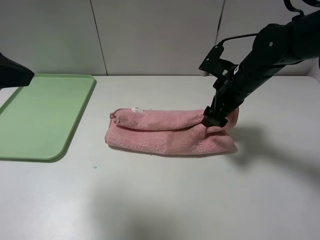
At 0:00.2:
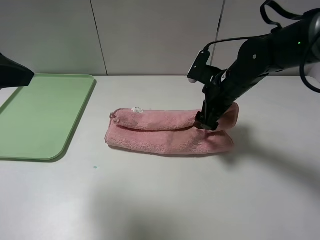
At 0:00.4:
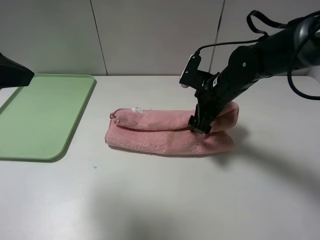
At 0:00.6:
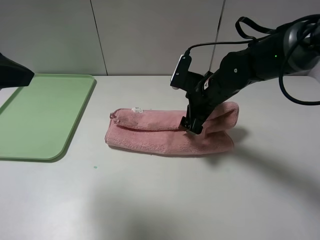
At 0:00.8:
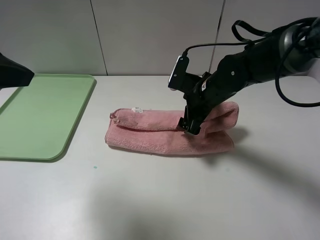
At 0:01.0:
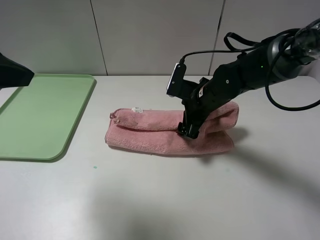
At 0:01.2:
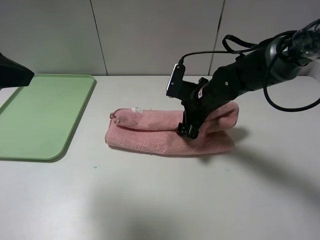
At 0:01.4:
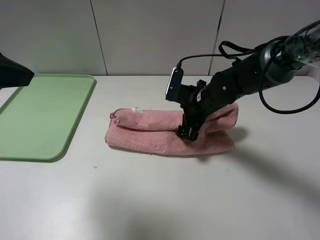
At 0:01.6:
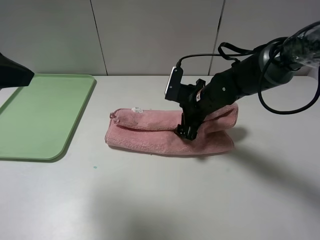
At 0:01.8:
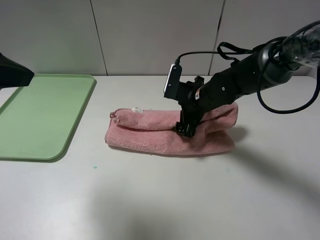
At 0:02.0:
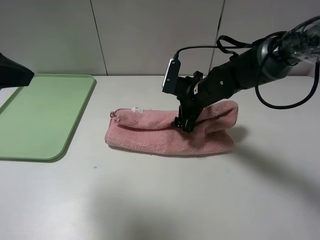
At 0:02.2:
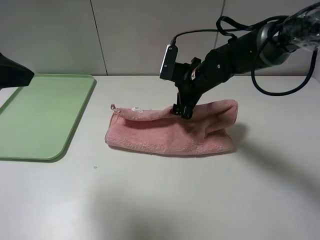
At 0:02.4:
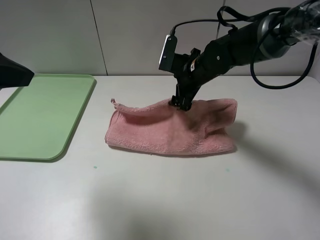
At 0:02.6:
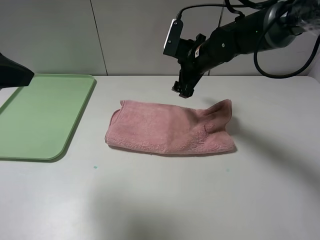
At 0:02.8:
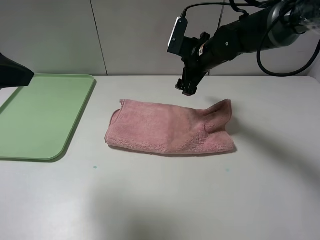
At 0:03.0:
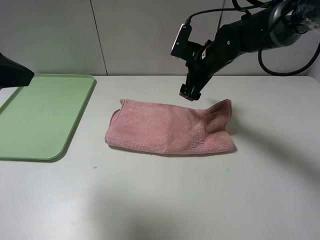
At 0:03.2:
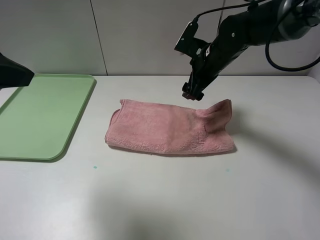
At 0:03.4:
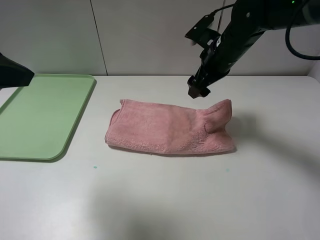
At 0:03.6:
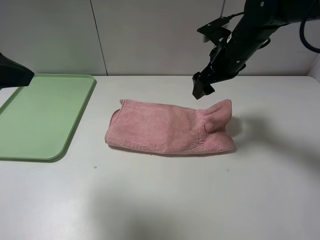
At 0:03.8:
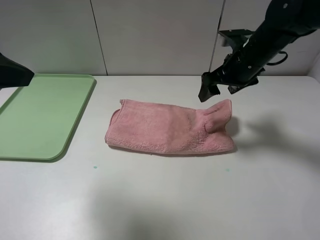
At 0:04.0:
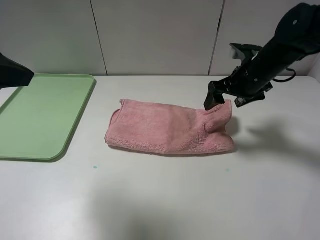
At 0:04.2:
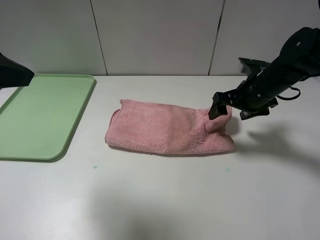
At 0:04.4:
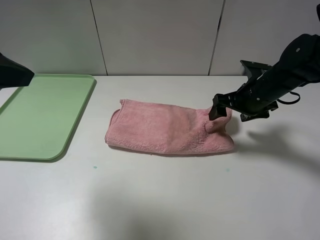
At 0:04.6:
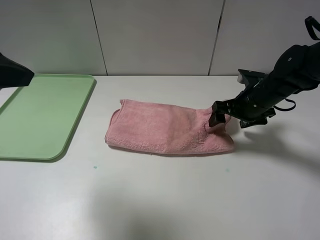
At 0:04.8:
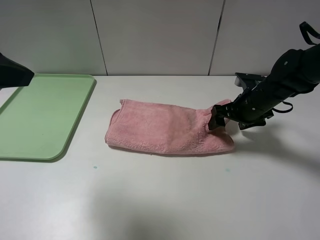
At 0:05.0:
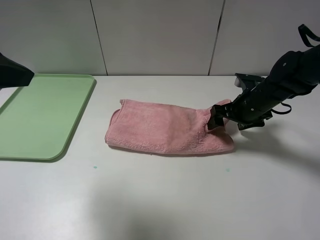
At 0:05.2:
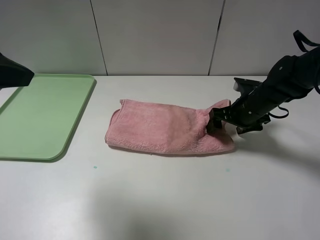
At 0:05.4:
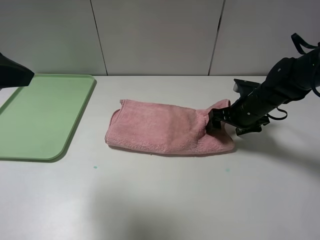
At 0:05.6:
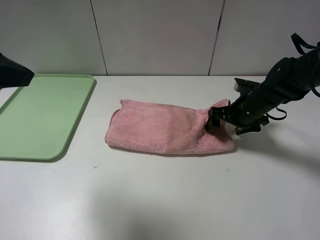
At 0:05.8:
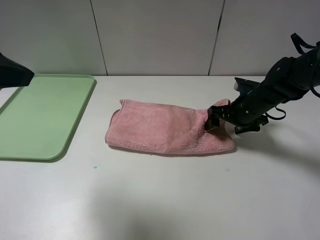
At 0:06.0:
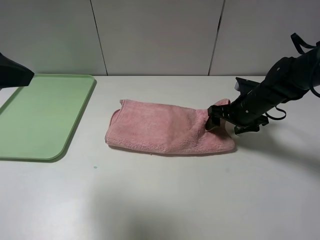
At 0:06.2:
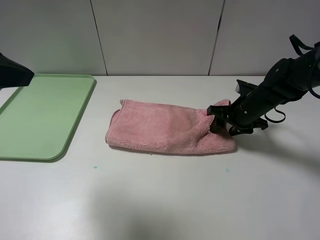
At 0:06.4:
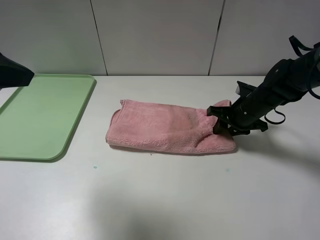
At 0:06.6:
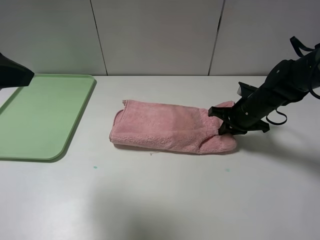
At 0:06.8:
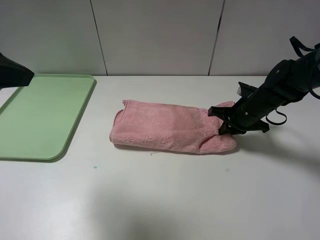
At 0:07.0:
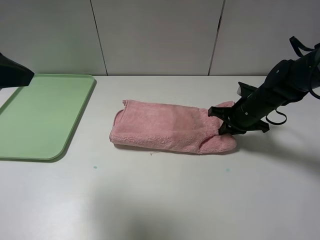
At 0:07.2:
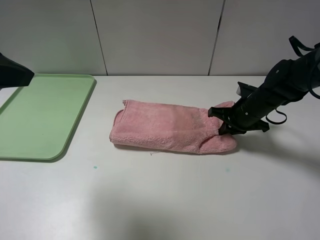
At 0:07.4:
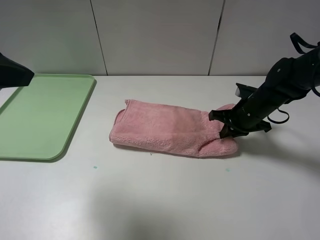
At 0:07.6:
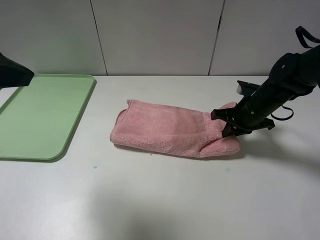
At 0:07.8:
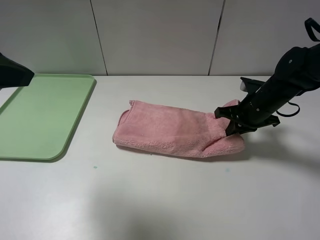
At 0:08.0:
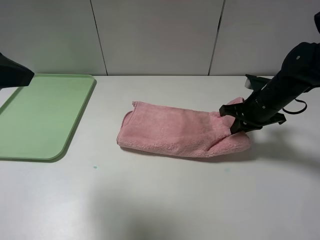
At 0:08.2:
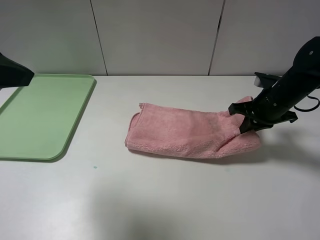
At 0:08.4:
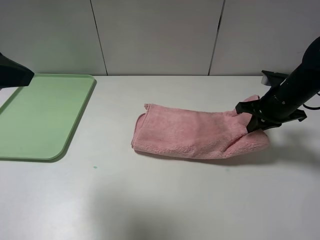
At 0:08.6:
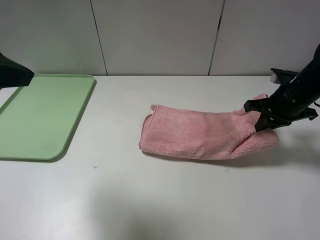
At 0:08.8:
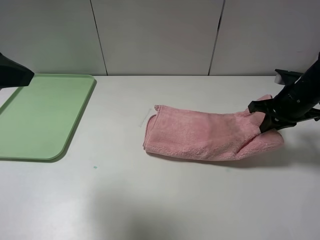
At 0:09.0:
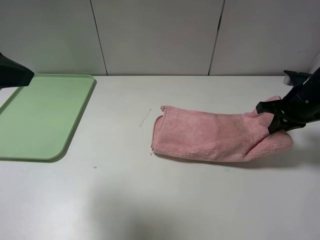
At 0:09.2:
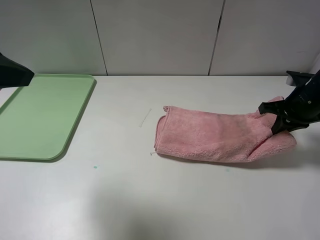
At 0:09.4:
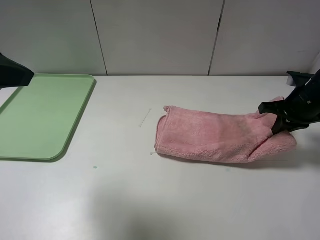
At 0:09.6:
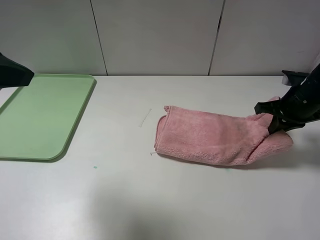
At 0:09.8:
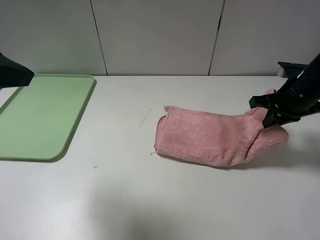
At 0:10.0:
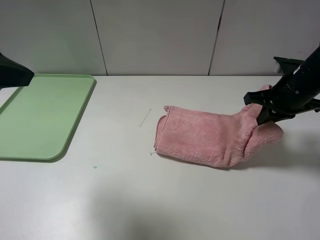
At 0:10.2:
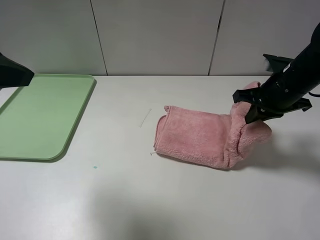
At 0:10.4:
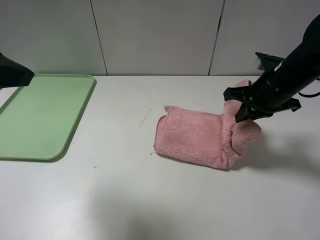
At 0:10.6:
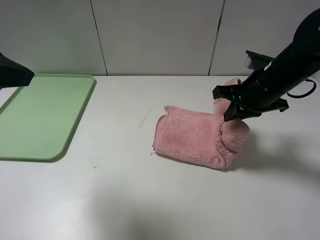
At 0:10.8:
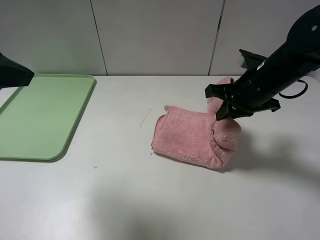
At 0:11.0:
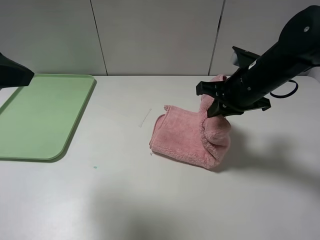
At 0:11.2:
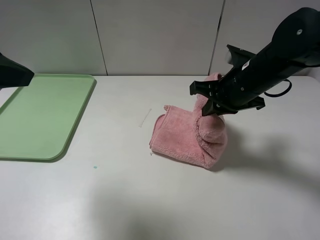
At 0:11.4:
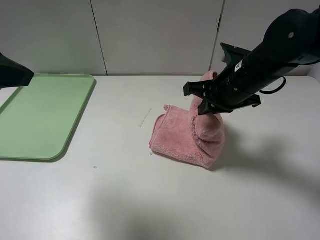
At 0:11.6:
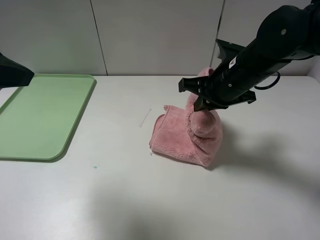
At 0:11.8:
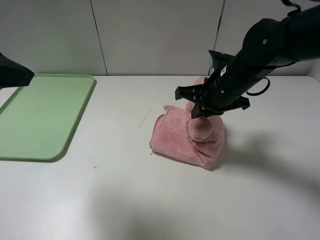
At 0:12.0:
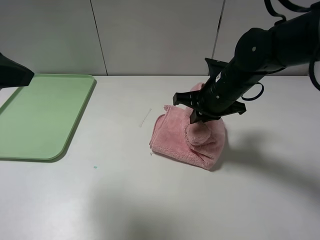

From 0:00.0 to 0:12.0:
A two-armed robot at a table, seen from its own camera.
Step, from 0:00.0 to 0:03.0: Fold the pink towel upwards.
From 0:00.0 to 0:01.6: The right gripper is displaced downward and to the left by about 10 cm.
From 0:01.6 to 0:03.0: The right gripper goes some 10 cm upward and forward.
From 0:03.0 to 0:04.4: The right gripper goes roughly 10 cm to the right and backward.
From 0:04.4 to 0:06.0: The right gripper moves downward, roughly 5 cm.
From 0:06.0 to 0:07.6: The right gripper closes up.
From 0:07.6 to 0:09.0: The right gripper shifts roughly 10 cm to the right.
From 0:09.0 to 0:10.4: The right gripper heads to the left, covering about 10 cm.
From 0:10.4 to 0:12.0: The right gripper goes approximately 10 cm to the left.

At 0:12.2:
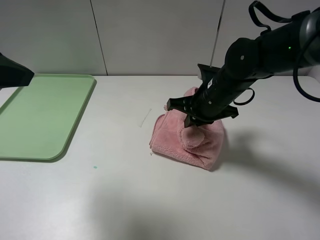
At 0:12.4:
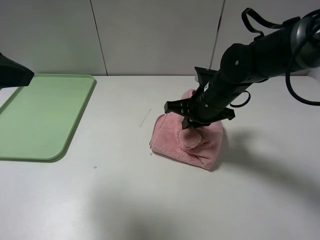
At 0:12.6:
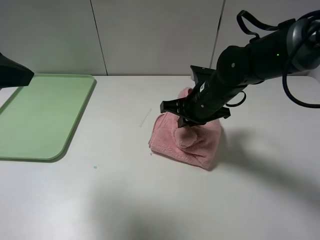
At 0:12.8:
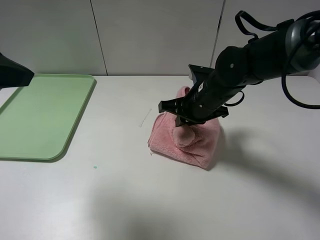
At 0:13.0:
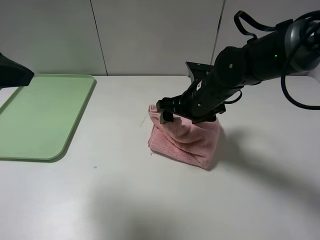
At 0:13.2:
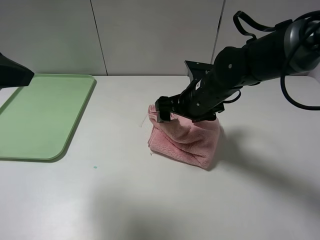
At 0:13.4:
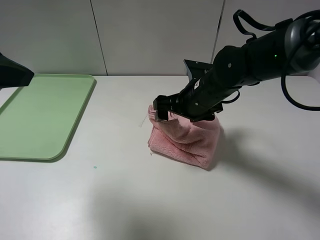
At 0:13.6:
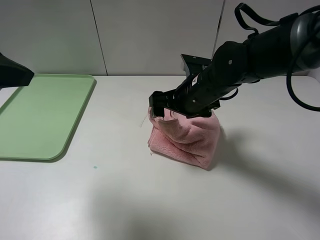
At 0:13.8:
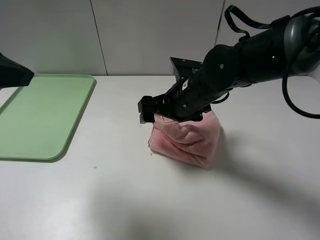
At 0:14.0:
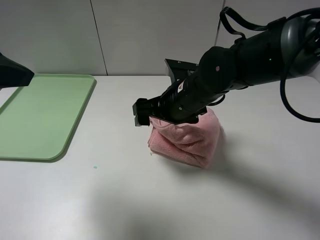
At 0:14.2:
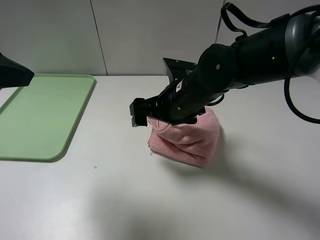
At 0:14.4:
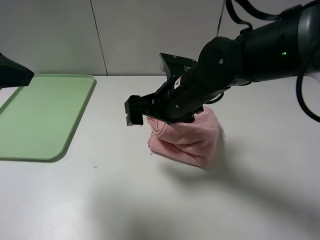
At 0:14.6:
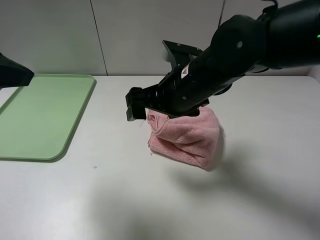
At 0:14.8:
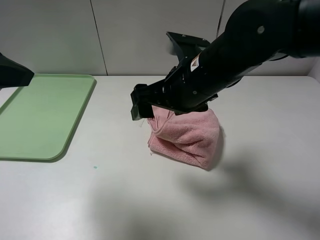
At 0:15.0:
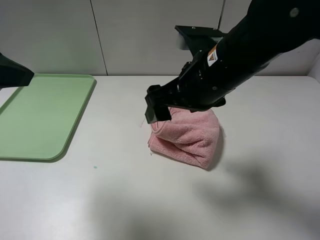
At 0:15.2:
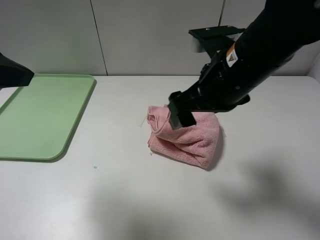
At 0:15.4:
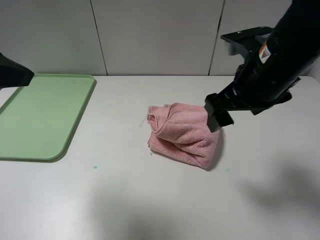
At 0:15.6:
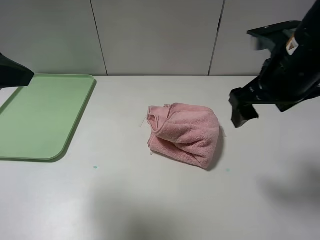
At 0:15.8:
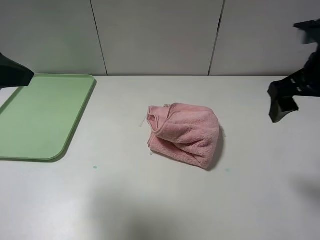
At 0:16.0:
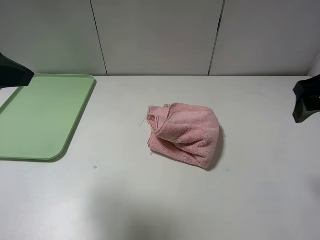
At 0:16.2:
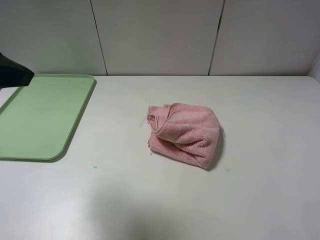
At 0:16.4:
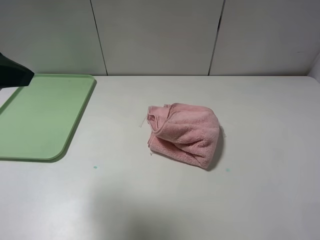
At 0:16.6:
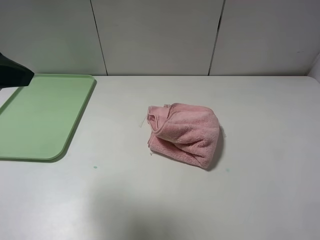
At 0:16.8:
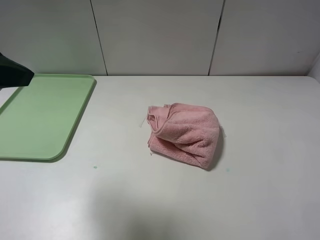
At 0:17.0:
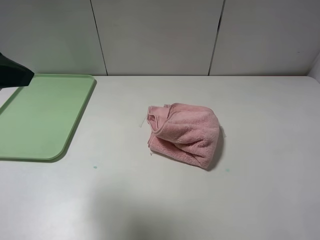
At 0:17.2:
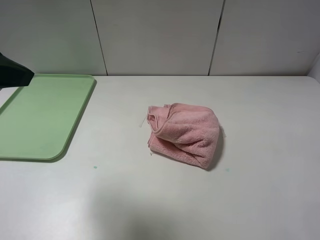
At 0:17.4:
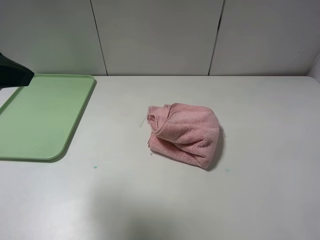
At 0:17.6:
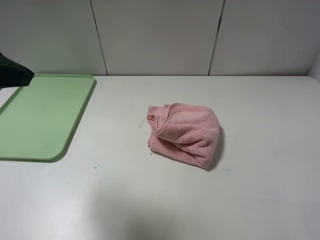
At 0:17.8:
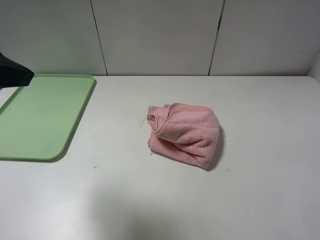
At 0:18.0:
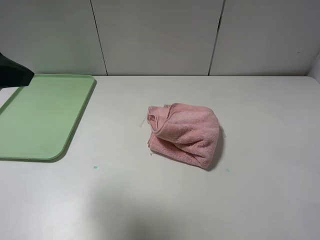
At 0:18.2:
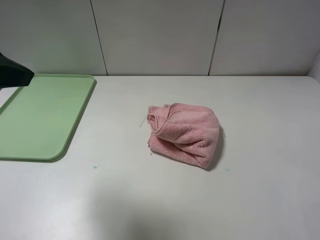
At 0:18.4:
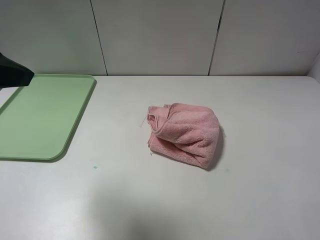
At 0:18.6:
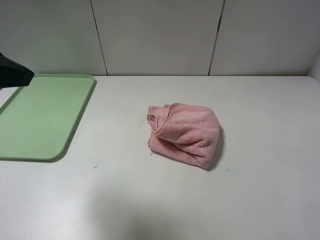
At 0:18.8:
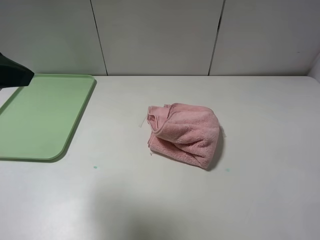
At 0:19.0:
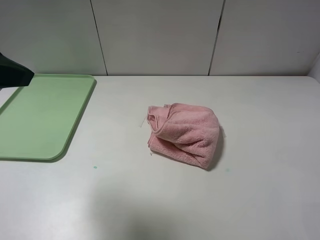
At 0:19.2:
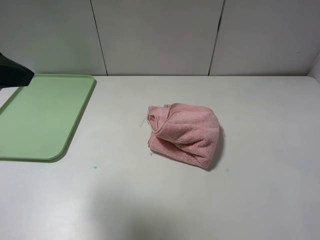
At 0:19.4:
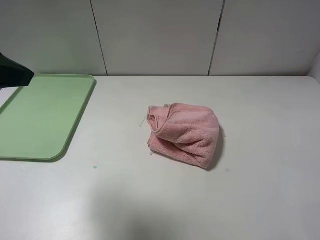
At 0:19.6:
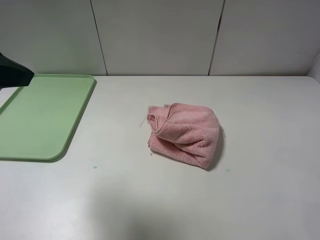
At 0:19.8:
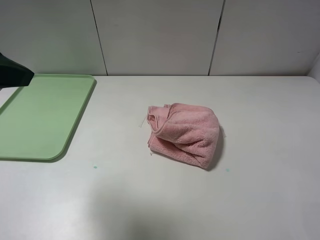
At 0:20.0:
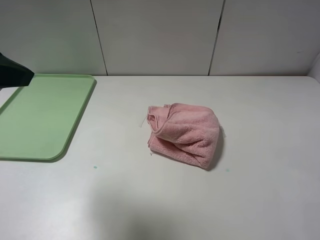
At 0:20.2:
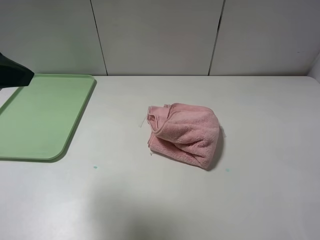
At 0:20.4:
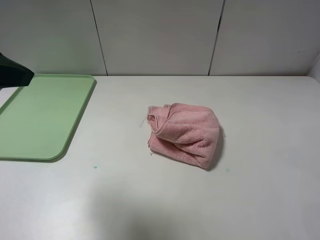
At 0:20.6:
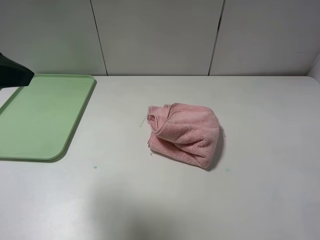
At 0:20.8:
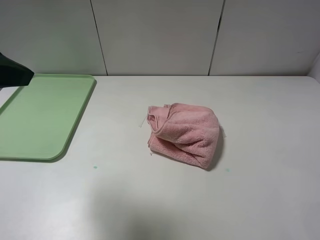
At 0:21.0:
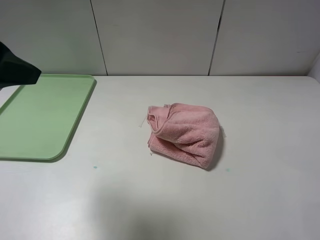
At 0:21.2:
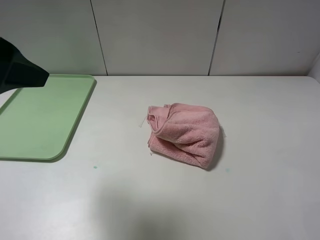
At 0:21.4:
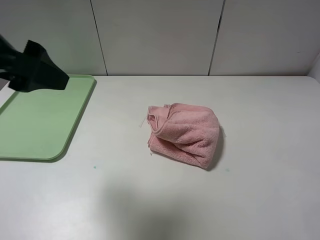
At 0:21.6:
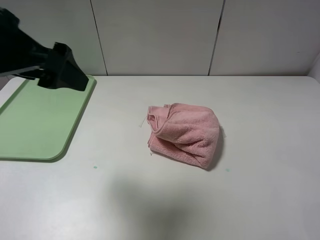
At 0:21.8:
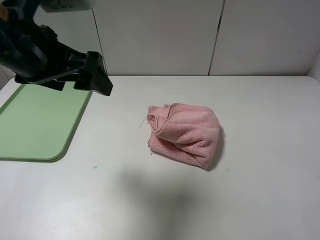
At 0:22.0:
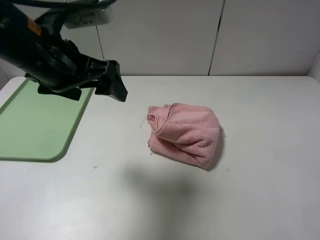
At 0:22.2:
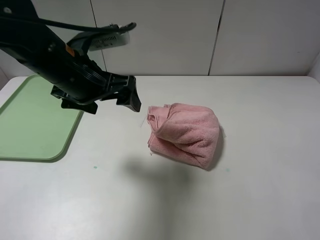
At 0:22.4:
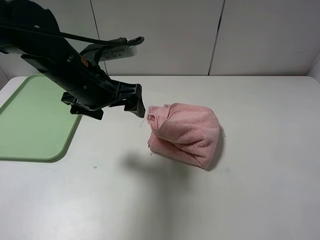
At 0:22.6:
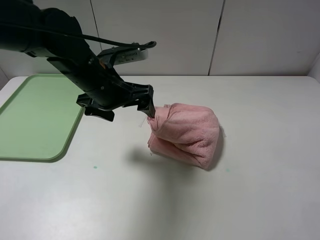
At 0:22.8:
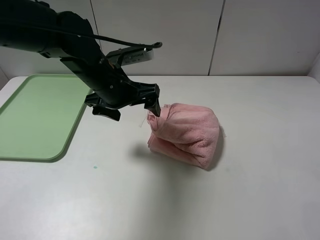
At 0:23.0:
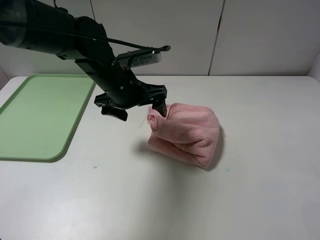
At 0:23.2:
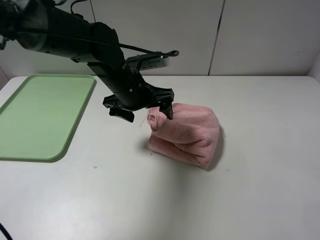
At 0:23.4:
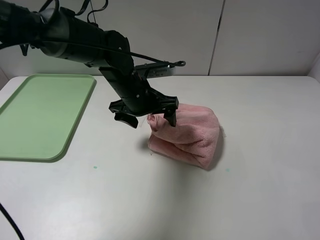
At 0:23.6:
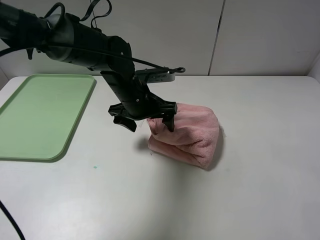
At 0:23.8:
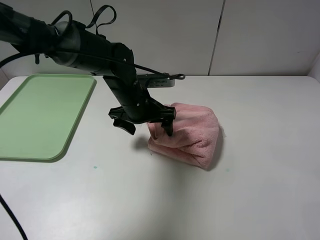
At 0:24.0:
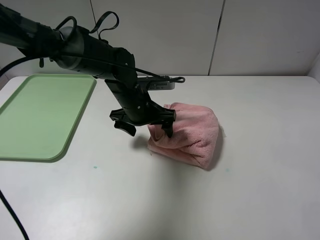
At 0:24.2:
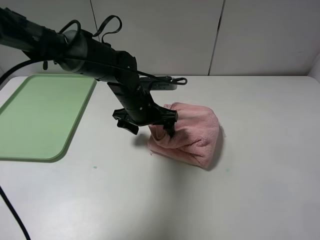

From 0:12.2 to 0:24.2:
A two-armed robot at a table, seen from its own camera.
From 0:12.2 to 0:13.8: The right gripper shifts about 5 cm to the left, and opens its fingers.
From 0:13.8 to 0:15.2: The right gripper goes some 10 cm upward, backward and to the right.
From 0:15.2 to 0:16.6: The right gripper shifts approximately 25 cm to the right and backward.
From 0:18.2 to 0:19.8: Neither gripper changes place.
From 0:19.8 to 0:21.2: There are only small adjustments of the grippers.
From 0:21.2 to 0:22.6: The left gripper goes some 25 cm downward, forward and to the right.
From 0:22.6 to 0:24.2: The left gripper is displaced downward and to the right by about 10 cm.
